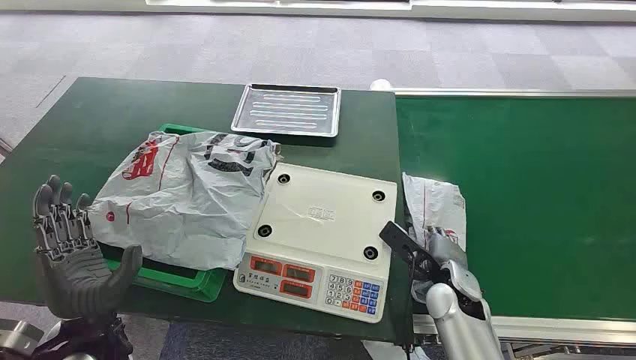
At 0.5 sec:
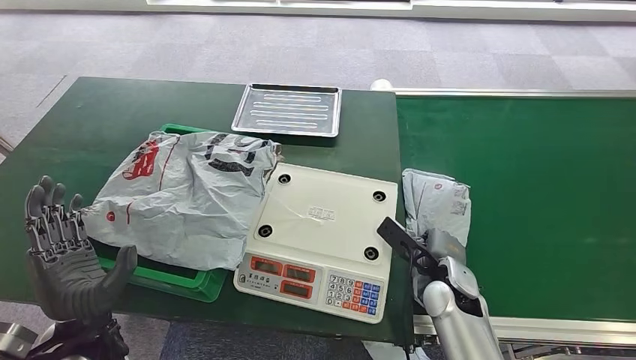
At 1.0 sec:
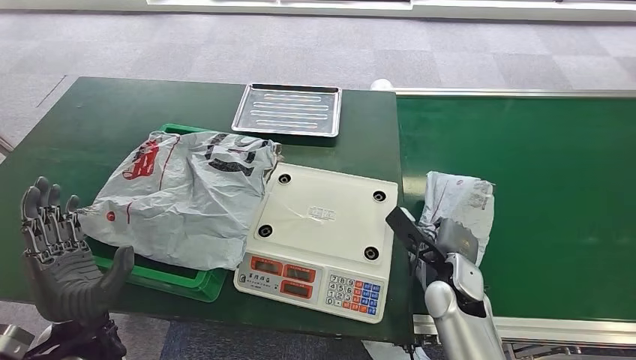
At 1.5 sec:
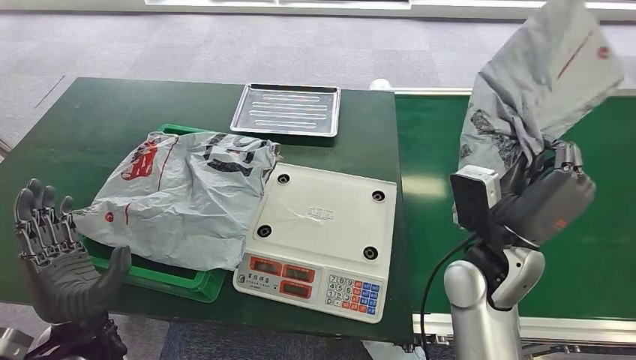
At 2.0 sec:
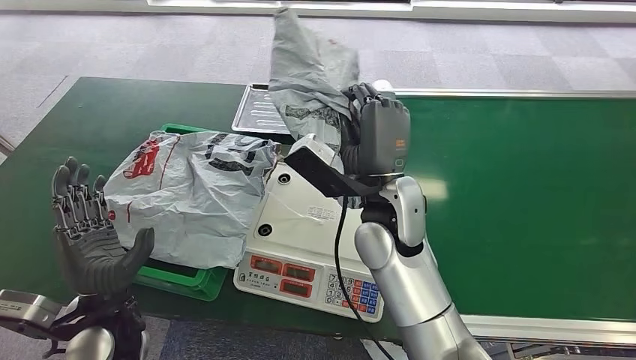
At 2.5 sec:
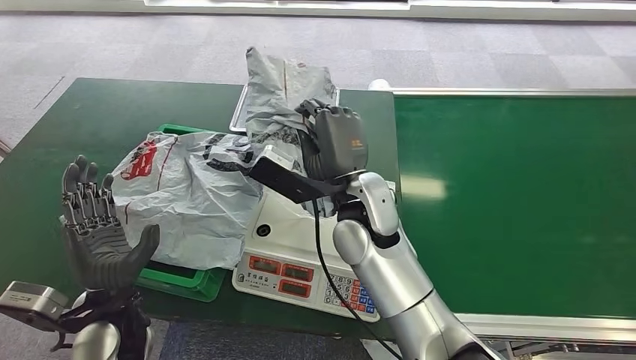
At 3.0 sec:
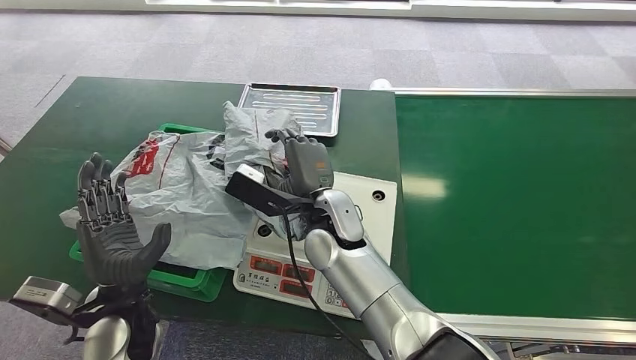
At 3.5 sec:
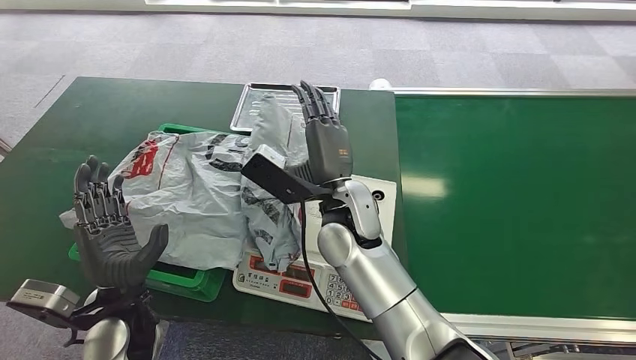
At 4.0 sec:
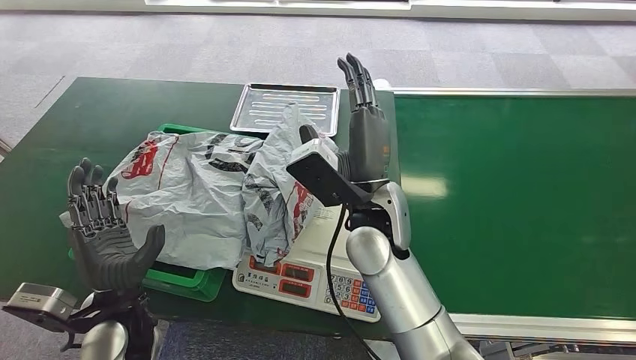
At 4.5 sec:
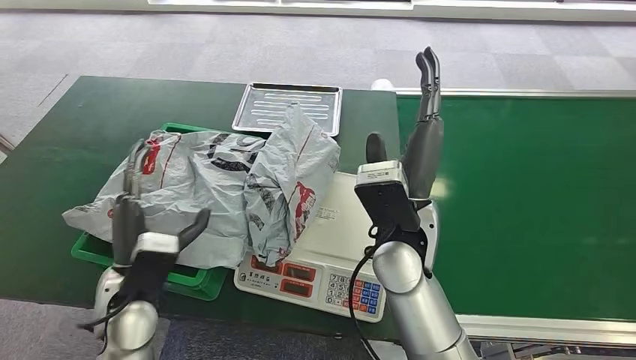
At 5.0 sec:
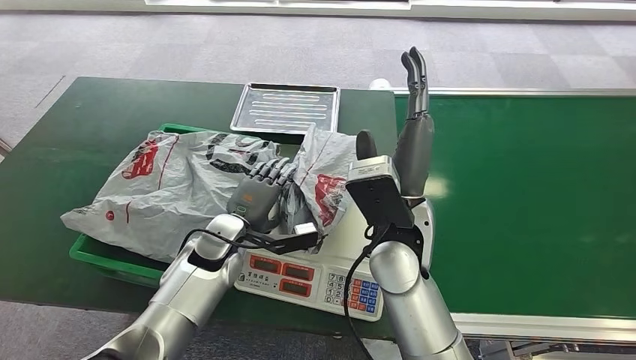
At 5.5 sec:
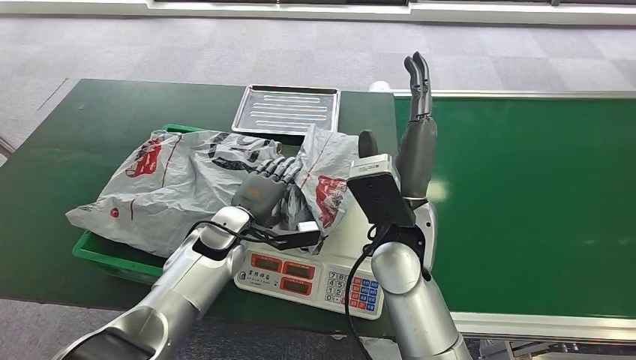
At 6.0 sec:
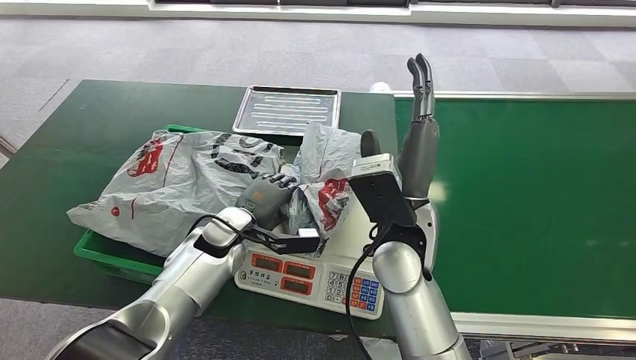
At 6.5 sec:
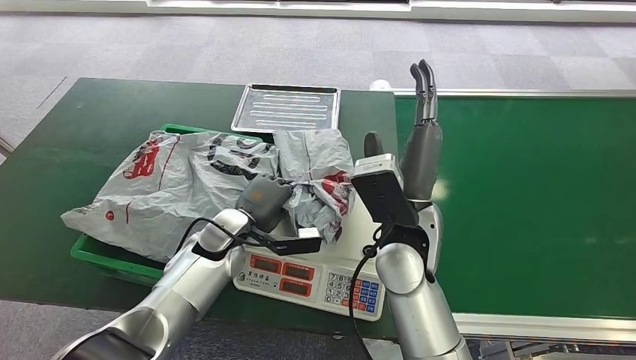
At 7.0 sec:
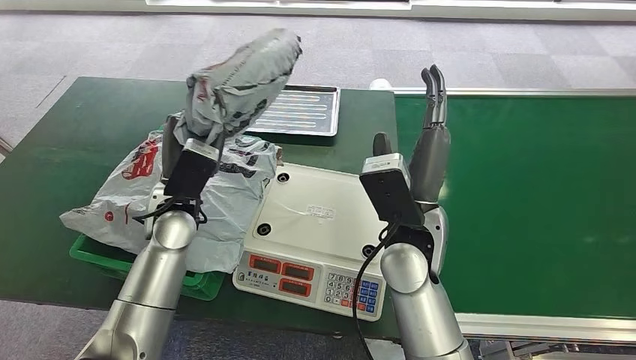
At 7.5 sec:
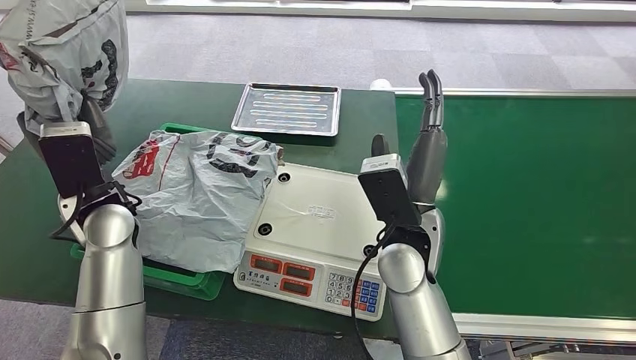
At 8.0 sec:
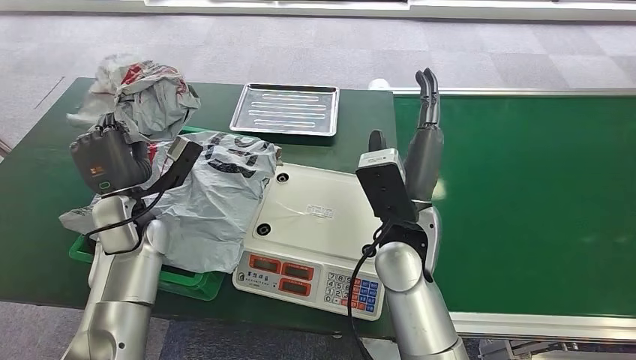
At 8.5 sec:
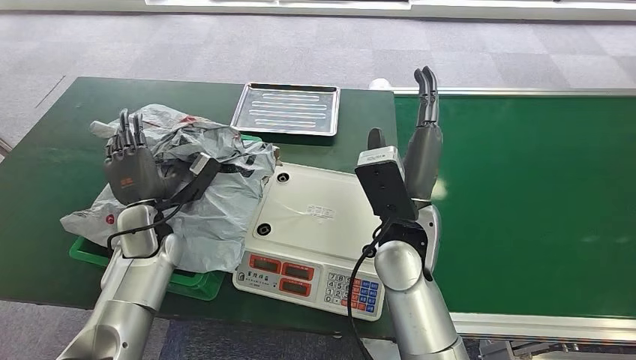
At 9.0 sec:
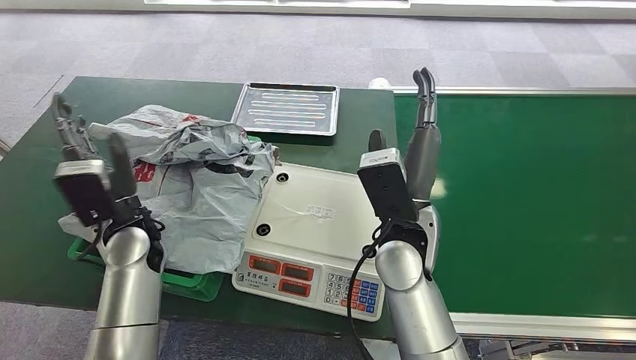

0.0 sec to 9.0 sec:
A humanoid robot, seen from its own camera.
Step, 0.0 sec to 1.5 sec: Pick up the package from the conveyor belt.
Step, 2.0 sec to 4.0 sec: Place the package onto the inbound machine.
Step, 4.5 sec to 7.0 sec: Pick up the package from the inbound machine.
Step, 8.0 sec to 9.0 sec: Place the package into the parcel locker.
